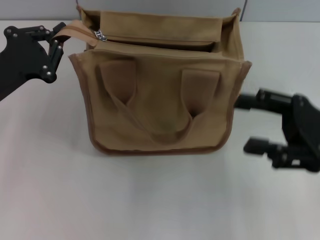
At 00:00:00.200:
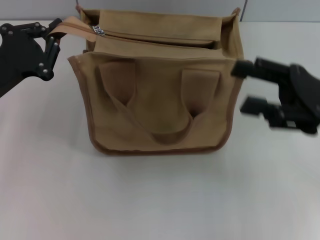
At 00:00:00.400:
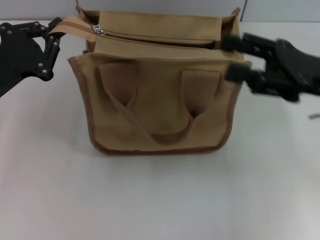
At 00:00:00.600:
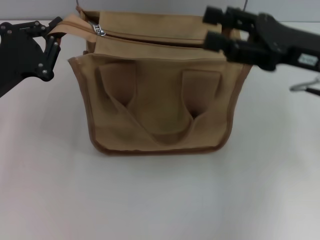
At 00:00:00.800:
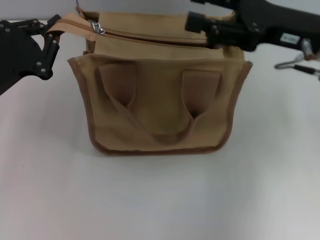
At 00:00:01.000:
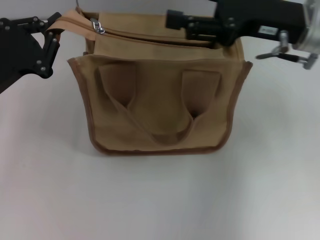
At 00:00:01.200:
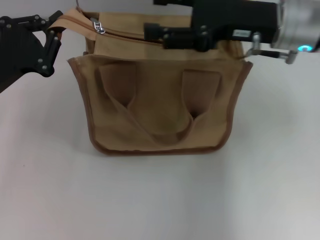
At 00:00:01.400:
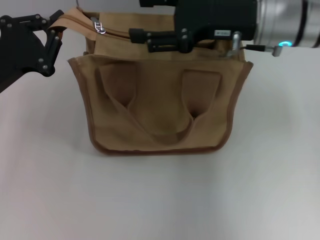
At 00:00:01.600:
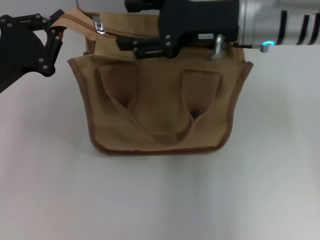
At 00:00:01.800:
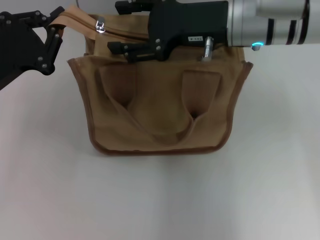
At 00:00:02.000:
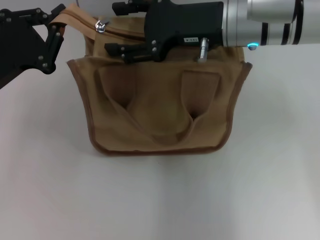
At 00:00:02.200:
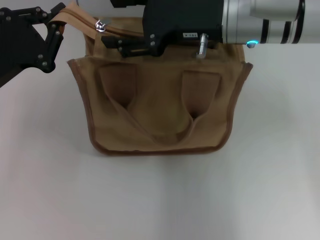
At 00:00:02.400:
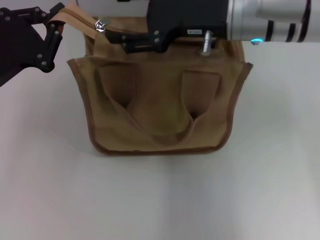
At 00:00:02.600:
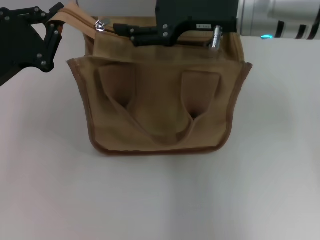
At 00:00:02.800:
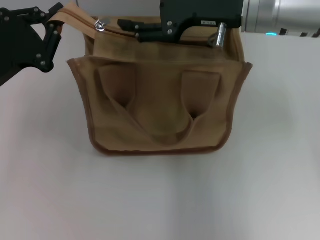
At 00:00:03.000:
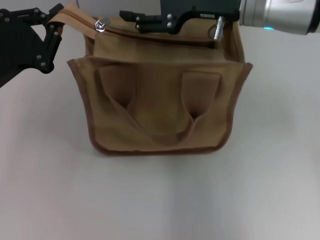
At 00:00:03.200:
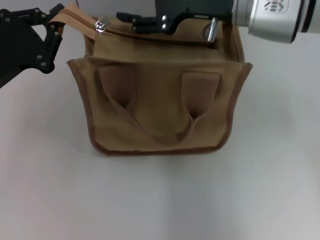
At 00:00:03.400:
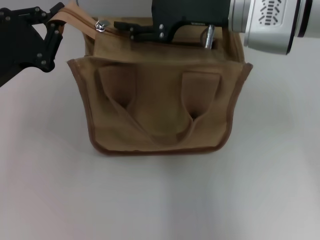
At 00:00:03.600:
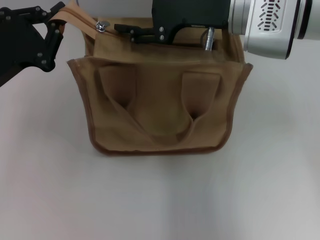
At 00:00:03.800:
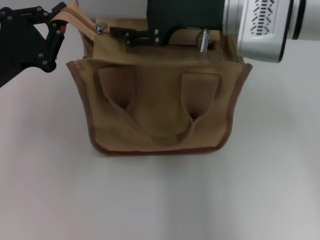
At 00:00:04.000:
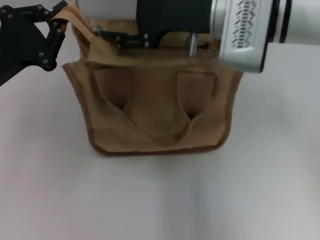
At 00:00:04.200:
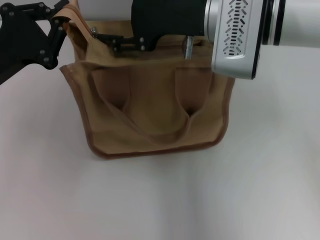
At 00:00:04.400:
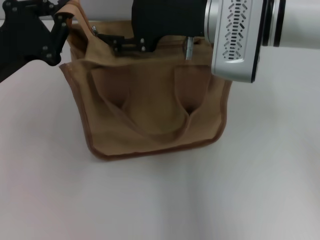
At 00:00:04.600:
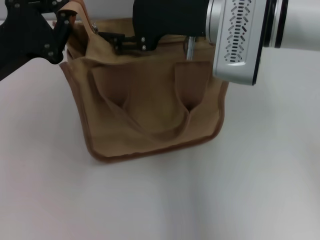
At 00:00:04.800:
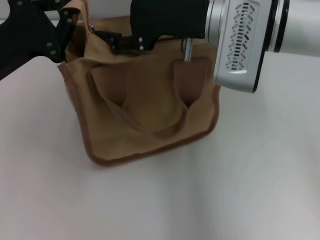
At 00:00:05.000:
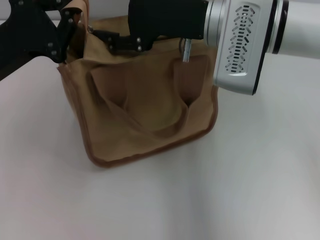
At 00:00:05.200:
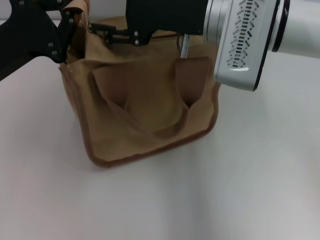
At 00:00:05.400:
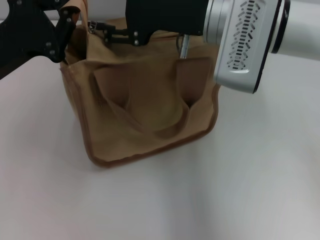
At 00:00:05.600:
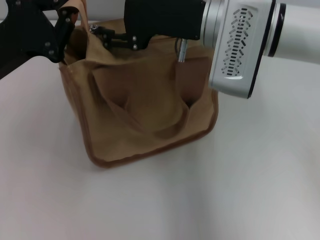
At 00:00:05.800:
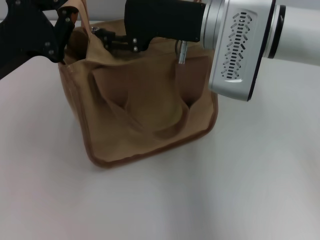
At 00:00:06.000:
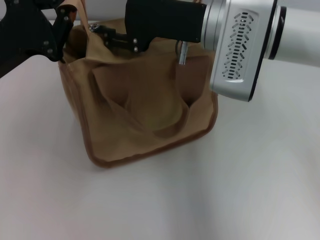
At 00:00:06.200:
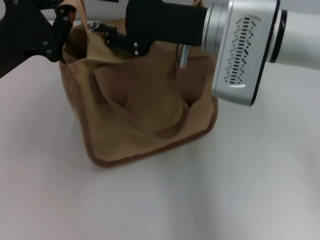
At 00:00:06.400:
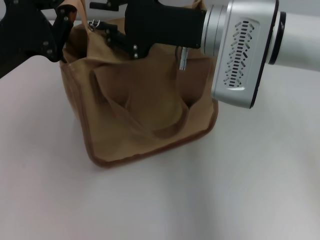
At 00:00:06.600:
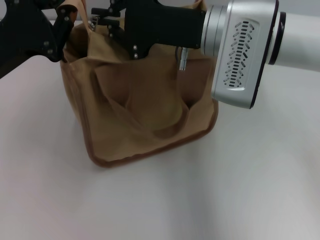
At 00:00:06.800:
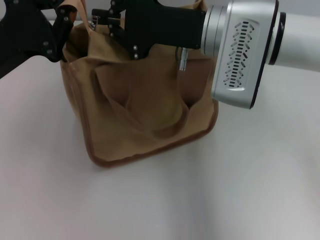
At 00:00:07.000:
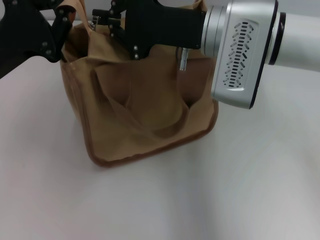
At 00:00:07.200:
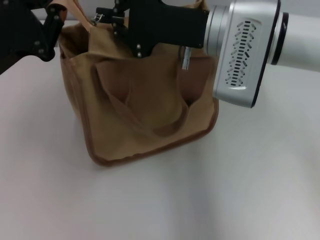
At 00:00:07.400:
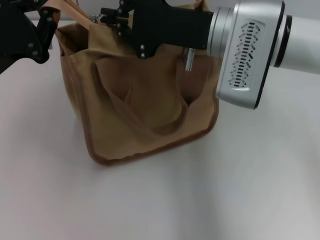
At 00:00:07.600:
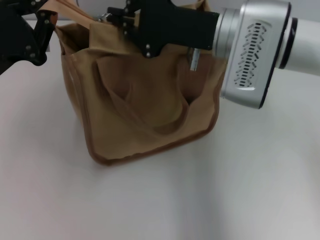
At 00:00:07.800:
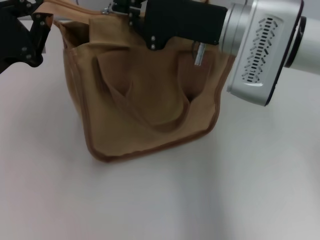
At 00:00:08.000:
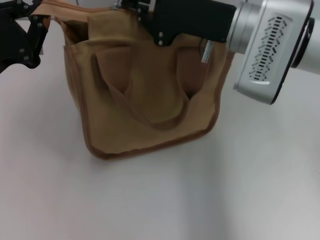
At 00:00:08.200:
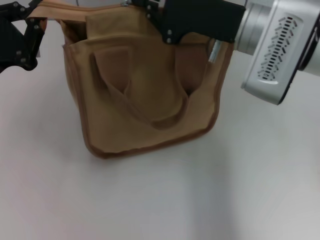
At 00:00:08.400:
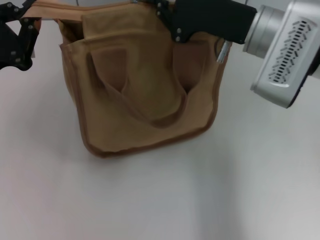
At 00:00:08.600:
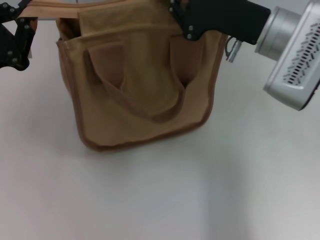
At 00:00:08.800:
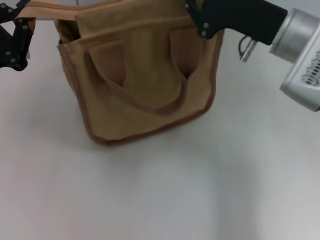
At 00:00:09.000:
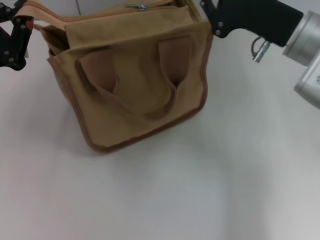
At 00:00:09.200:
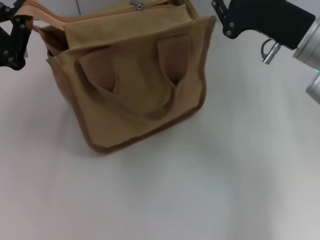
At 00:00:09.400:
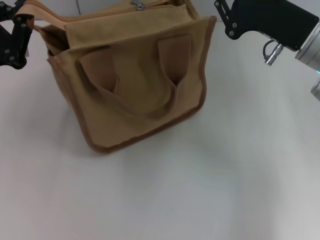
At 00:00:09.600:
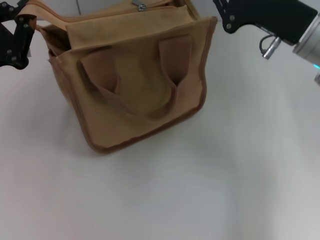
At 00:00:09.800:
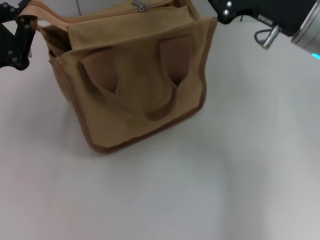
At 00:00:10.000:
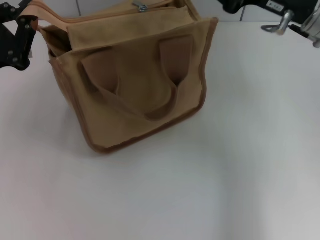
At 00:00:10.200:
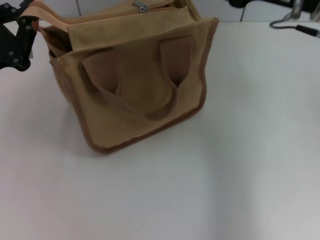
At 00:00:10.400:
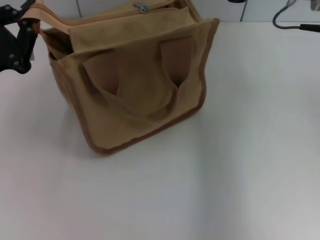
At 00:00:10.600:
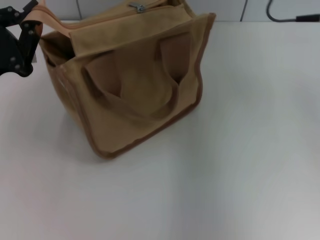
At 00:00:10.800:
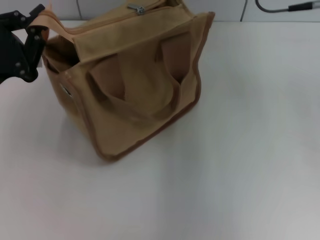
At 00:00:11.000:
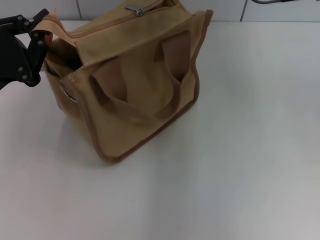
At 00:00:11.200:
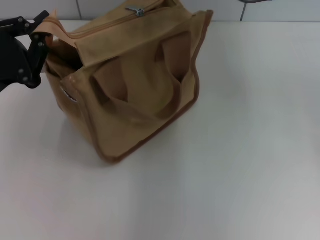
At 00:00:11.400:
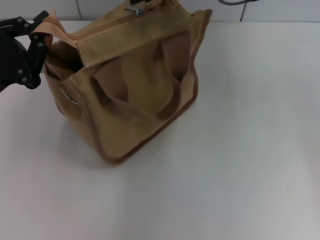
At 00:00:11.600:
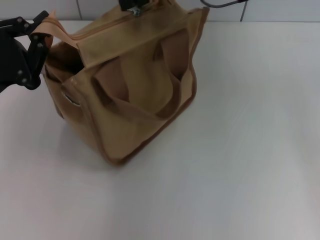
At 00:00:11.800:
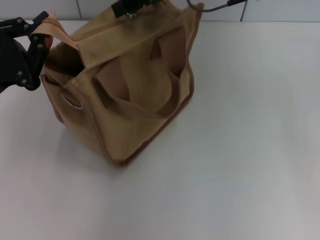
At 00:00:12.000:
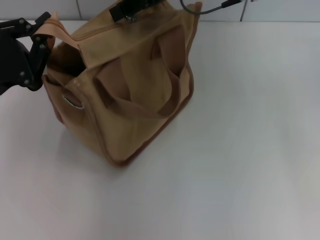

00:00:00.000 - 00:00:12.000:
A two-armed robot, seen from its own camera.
00:00:00.000 - 00:00:01.600: The right gripper travels to the left, forward and upward by about 20 cm.
00:00:03.000 - 00:00:04.400: There are only small adjustments of the grippers.
00:00:04.400 - 00:00:06.000: The grippers move only a little.
00:00:06.000 - 00:00:07.600: The right gripper closes up.
00:00:07.600 - 00:00:09.000: The right gripper goes roughly 10 cm to the right.
00:00:09.000 - 00:00:10.400: The right gripper goes some 5 cm upward, and opens its fingers.
00:00:10.400 - 00:00:12.000: The right gripper moves to the left and forward, roughly 15 cm.

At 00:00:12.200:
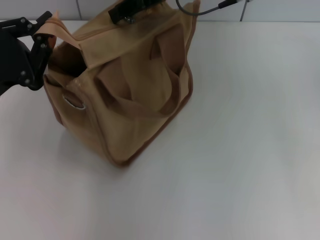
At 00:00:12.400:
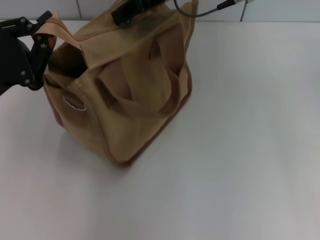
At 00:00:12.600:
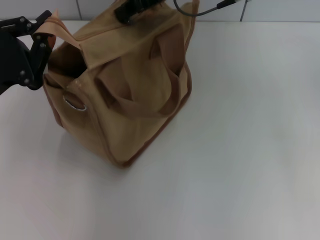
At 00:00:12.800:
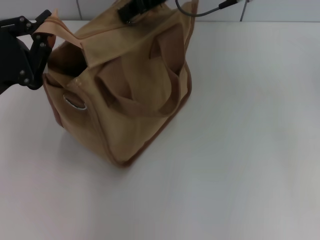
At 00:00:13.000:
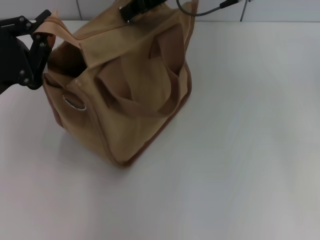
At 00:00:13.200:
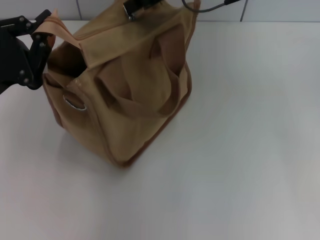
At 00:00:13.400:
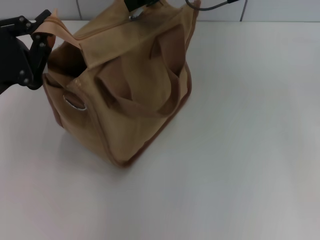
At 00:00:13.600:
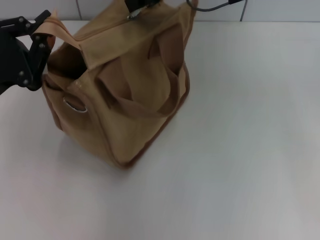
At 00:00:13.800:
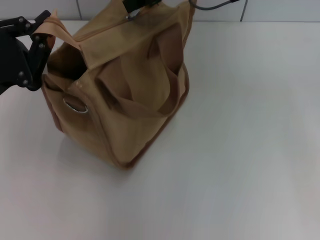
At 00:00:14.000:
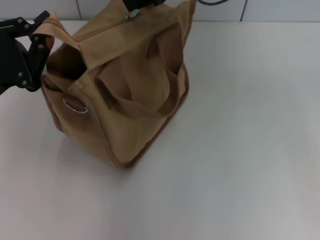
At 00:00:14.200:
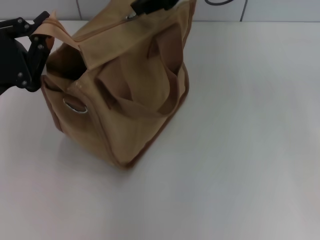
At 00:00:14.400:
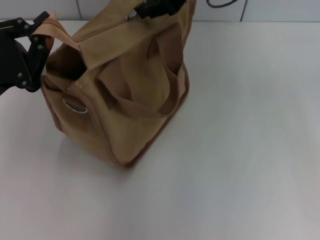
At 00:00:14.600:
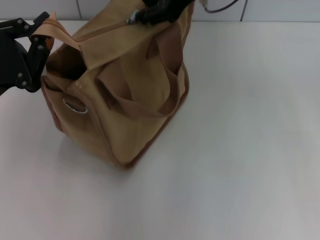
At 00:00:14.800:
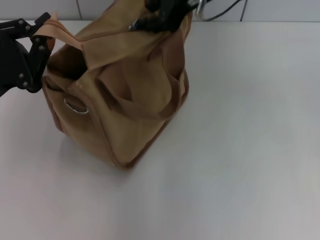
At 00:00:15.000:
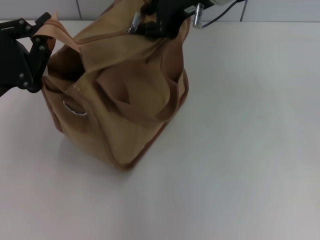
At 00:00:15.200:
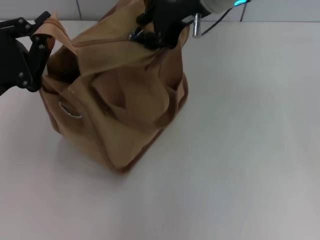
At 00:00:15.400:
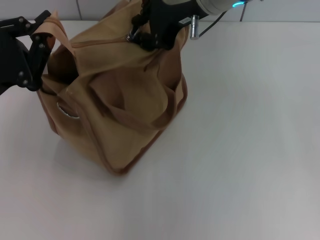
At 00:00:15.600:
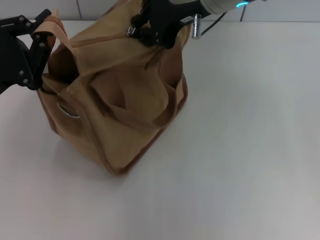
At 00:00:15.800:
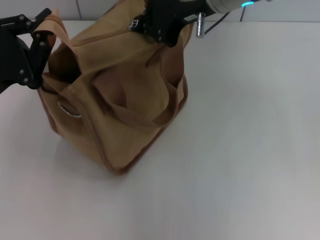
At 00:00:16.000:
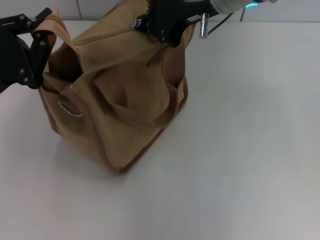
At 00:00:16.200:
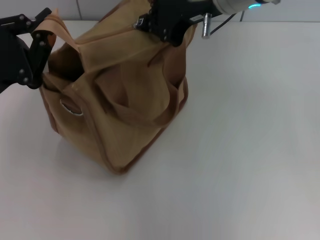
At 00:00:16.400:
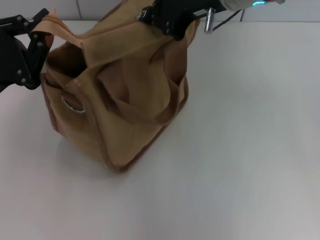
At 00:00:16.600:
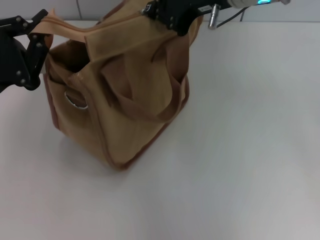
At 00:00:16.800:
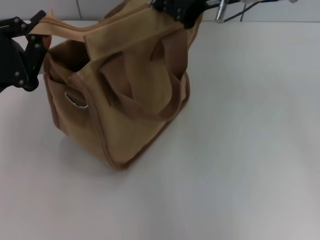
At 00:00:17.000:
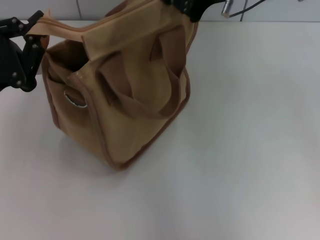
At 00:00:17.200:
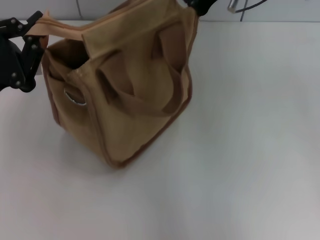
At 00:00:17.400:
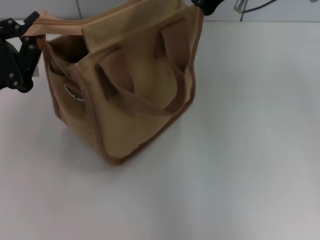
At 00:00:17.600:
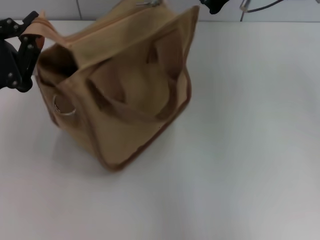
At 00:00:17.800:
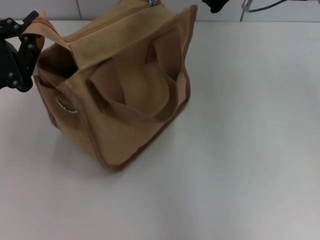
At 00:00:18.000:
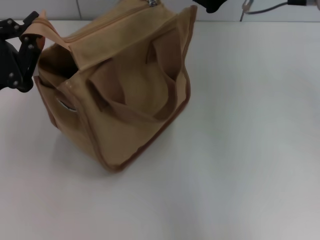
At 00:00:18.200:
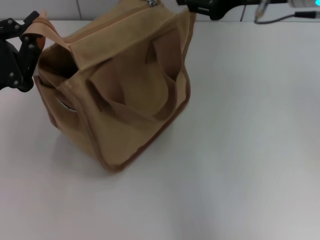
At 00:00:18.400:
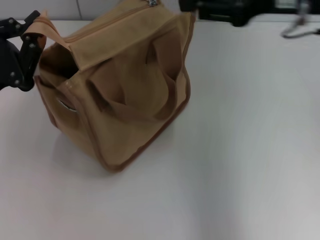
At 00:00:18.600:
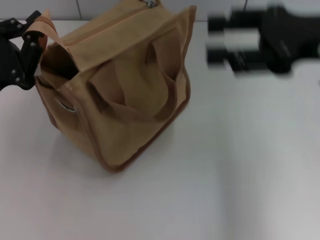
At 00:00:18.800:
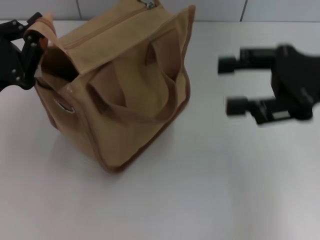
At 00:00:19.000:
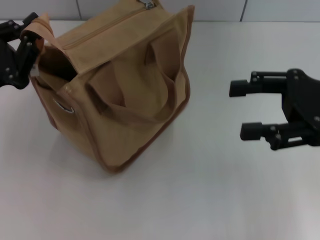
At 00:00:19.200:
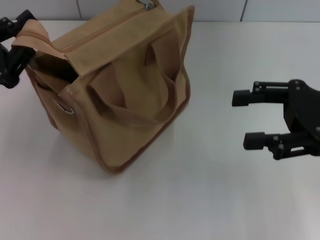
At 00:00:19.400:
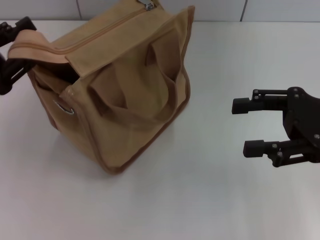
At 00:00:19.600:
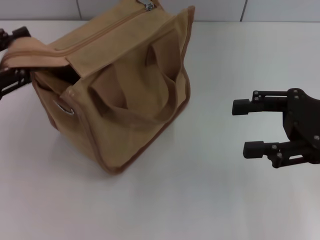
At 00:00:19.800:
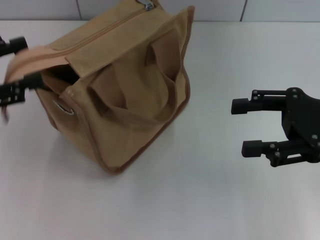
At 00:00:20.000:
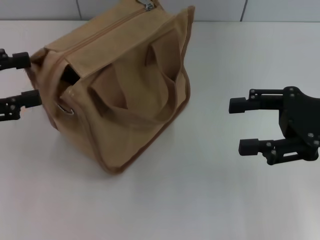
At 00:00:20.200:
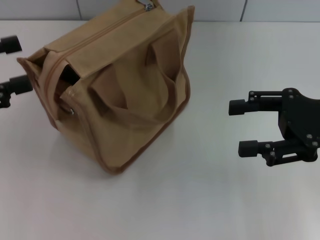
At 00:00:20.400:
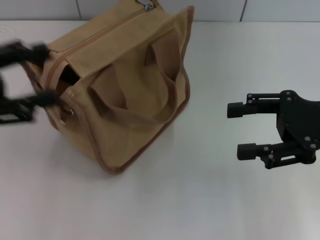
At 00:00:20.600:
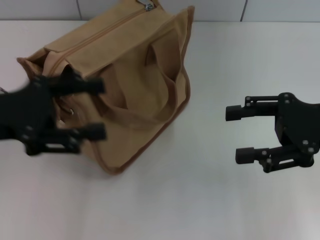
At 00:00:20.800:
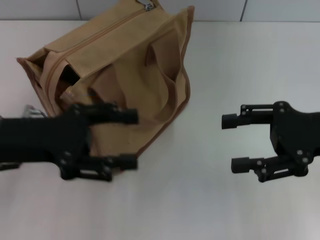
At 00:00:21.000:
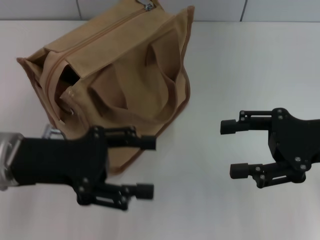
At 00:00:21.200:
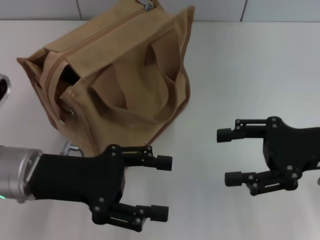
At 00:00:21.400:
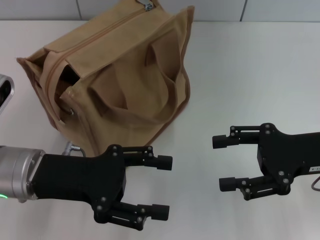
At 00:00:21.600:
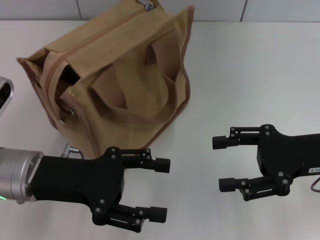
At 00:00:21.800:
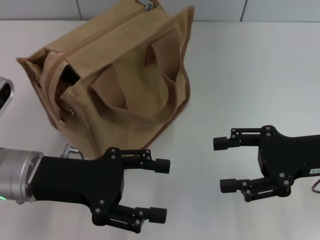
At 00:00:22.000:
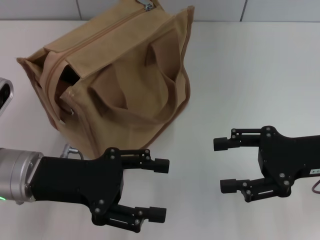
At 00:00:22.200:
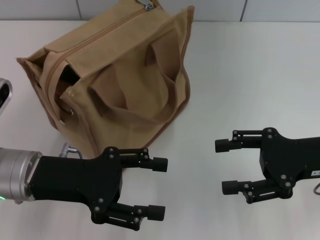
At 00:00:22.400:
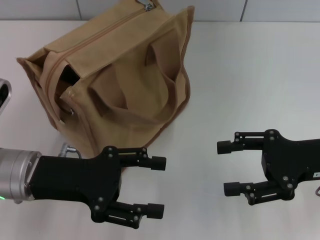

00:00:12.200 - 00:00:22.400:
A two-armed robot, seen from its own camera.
Step, 00:00:12.200 - 00:00:18.000: Pull up the zipper with your right hand.
Step, 00:00:18.200 - 00:00:20.000: Grab the zipper with your left hand.
00:00:12.200 - 00:00:13.600: The right gripper closes its fingers.
00:00:15.200 - 00:00:16.600: The right gripper closes.
00:00:16.600 - 00:00:18.000: The right gripper heads to the right, covering approximately 5 cm.
00:00:18.000 - 00:00:19.400: The right gripper travels to the right, backward and downward by some 20 cm, and opens.
00:00:19.400 - 00:00:21.000: The left gripper moves to the right, approximately 10 cm, and opens.
00:00:21.000 - 00:00:22.400: The grippers make only small movements.
